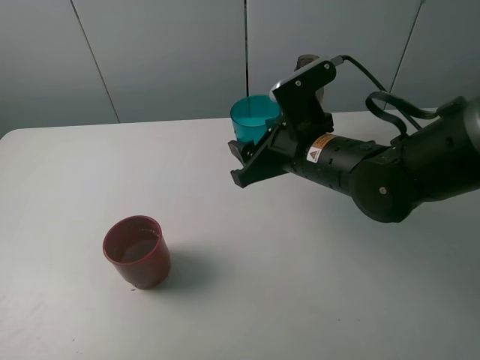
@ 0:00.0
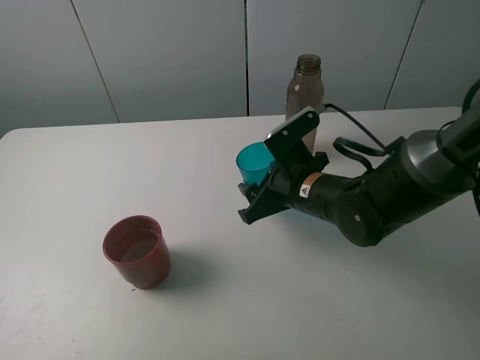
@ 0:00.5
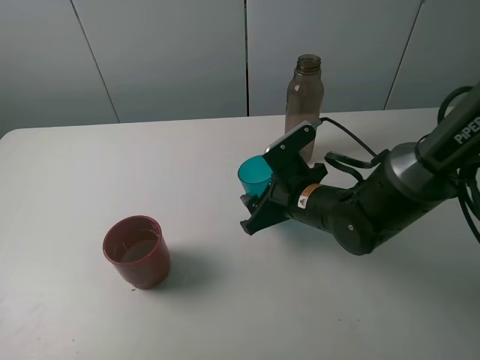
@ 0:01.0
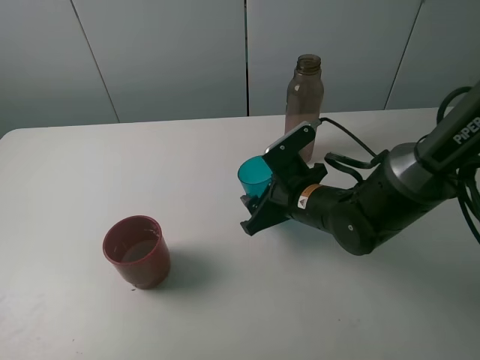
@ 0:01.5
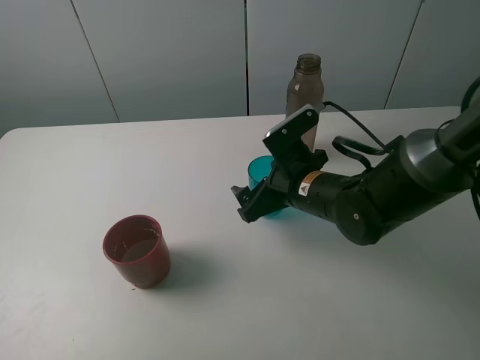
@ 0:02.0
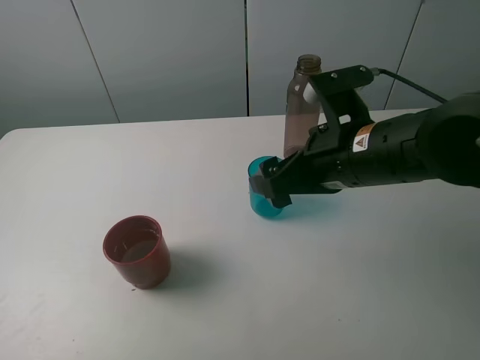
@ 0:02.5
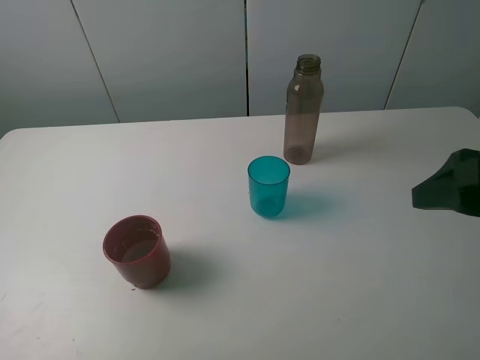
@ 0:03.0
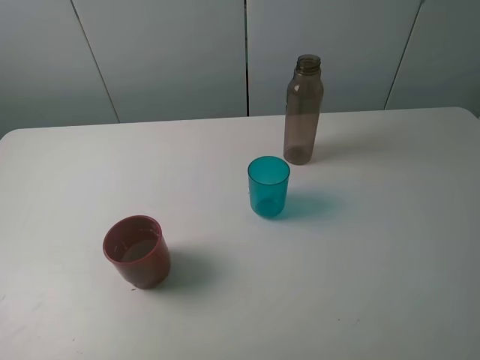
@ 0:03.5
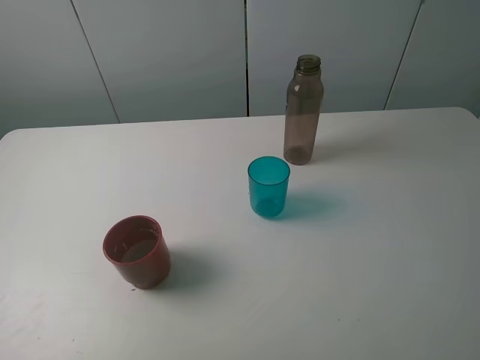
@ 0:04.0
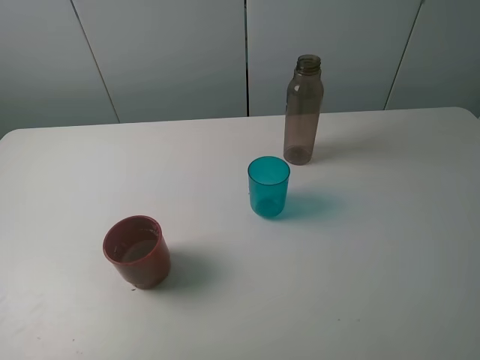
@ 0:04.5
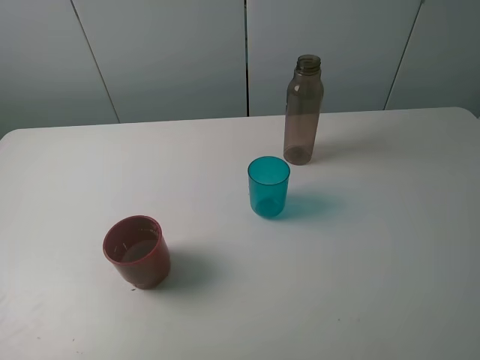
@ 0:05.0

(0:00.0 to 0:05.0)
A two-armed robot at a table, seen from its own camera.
Task of the whole recording: pick up the bottle and pour water into the cup, then pick up the cup containing water and pour it into another cup.
0:00.0 - 0:02.5: The right gripper is displaced backward by some 5 cm, and opens up.
0:02.5 - 0:05.0: The right gripper moves backward, to the right and upward, some 25 cm.

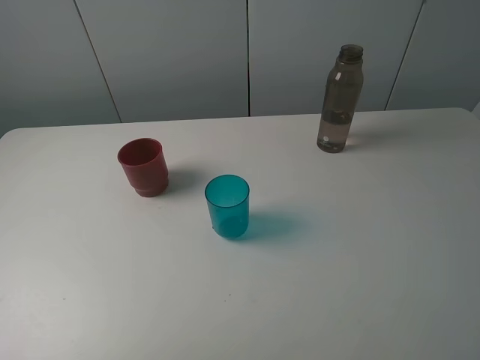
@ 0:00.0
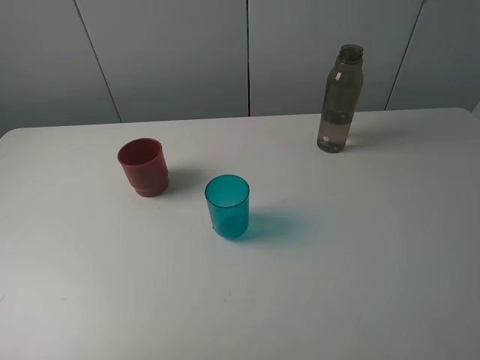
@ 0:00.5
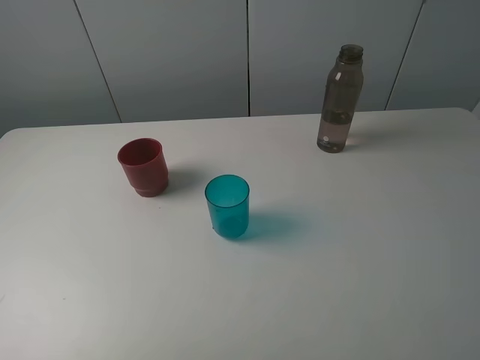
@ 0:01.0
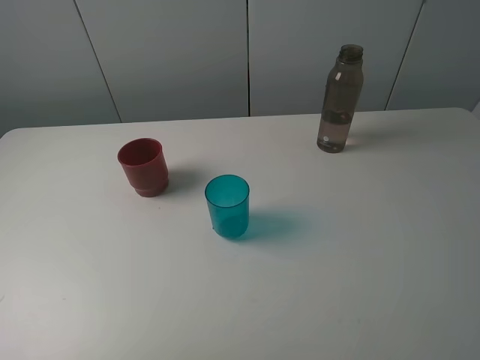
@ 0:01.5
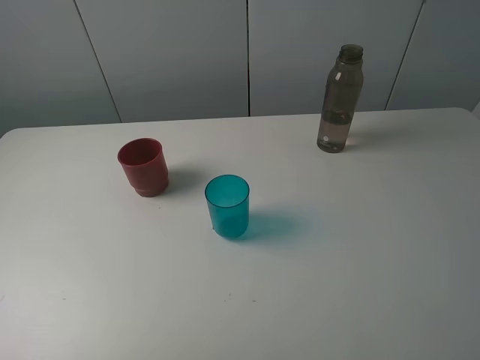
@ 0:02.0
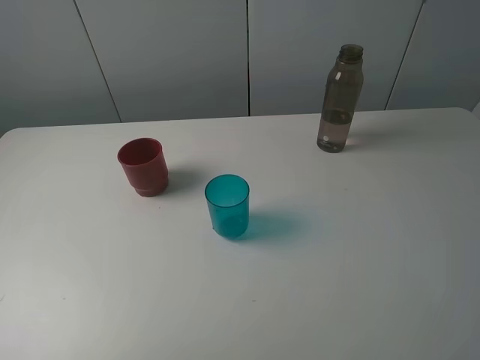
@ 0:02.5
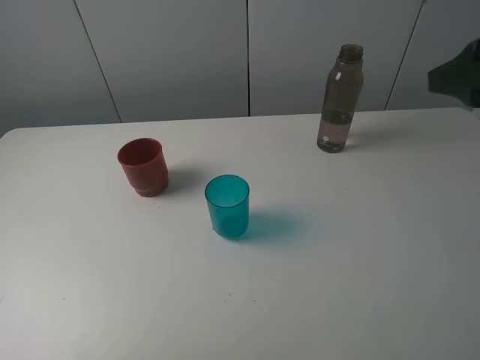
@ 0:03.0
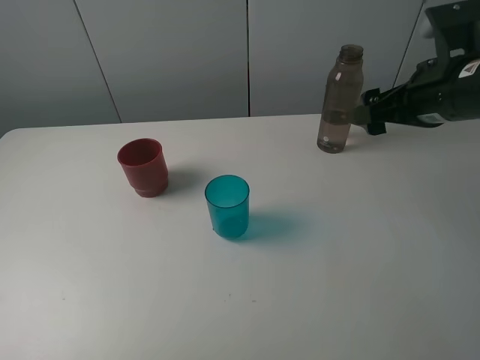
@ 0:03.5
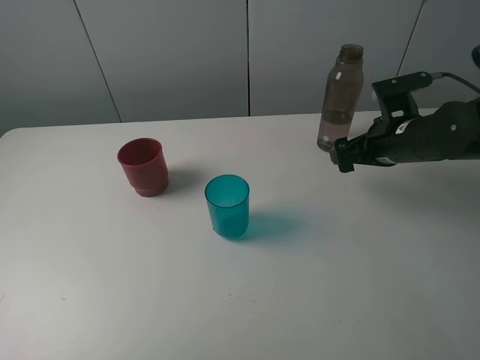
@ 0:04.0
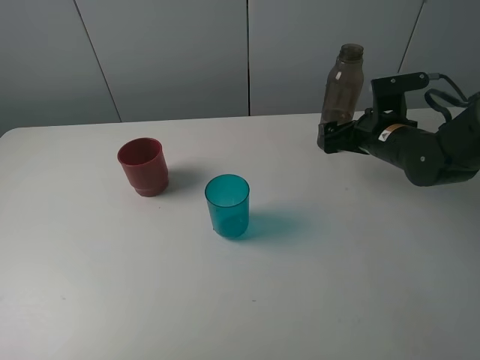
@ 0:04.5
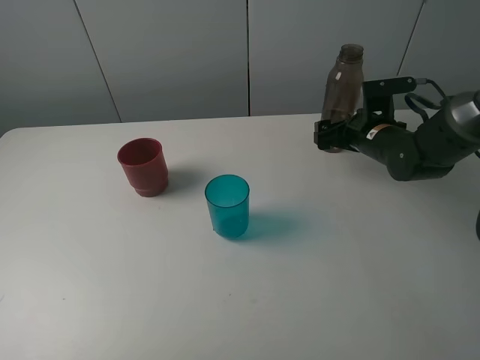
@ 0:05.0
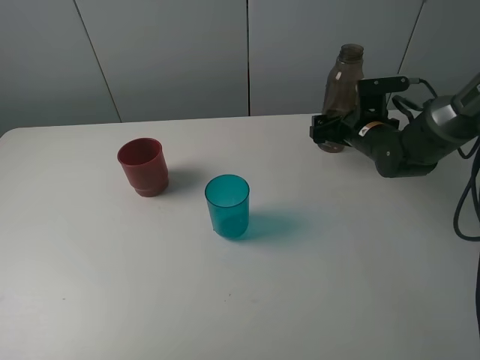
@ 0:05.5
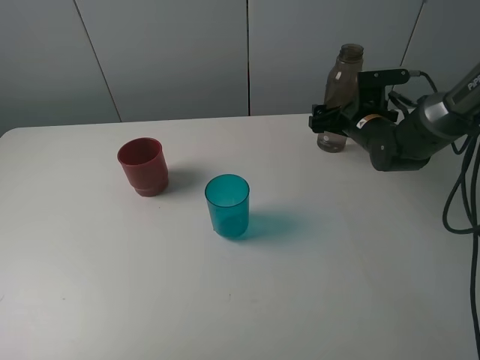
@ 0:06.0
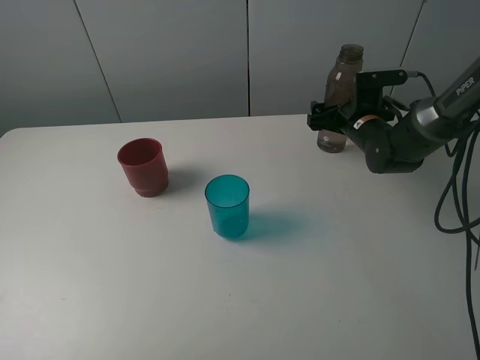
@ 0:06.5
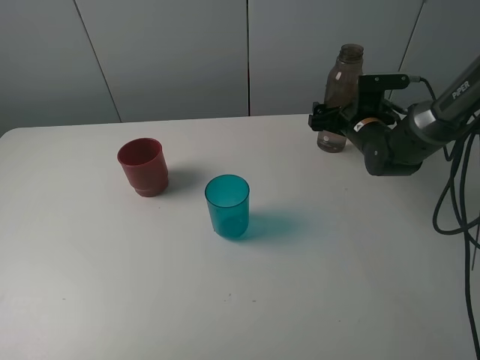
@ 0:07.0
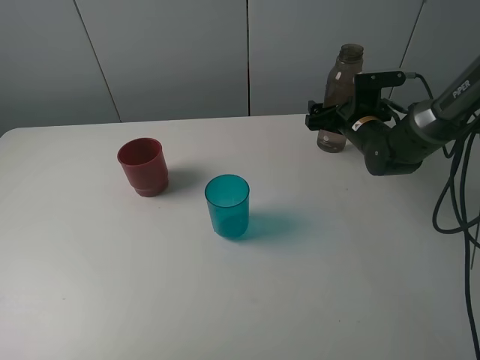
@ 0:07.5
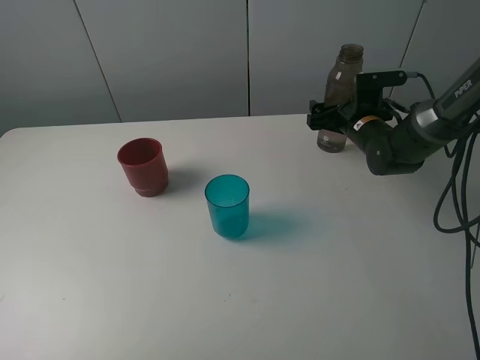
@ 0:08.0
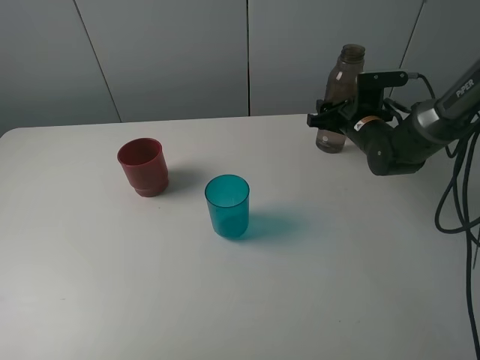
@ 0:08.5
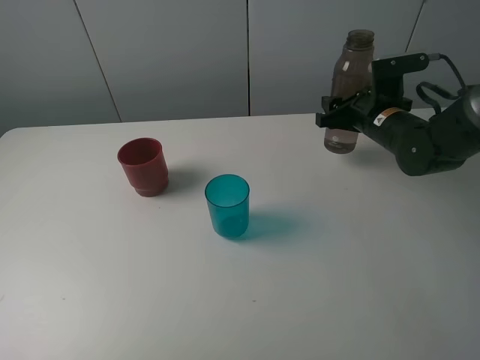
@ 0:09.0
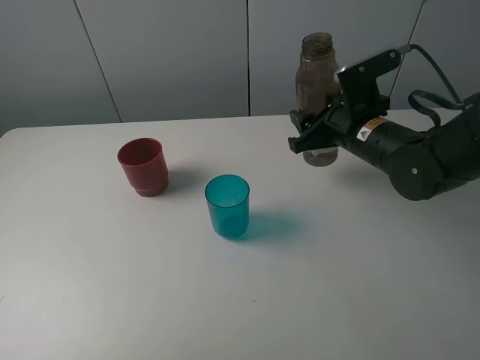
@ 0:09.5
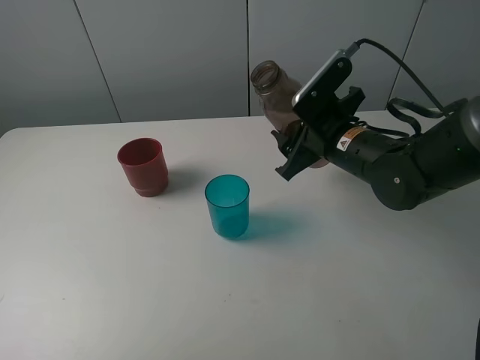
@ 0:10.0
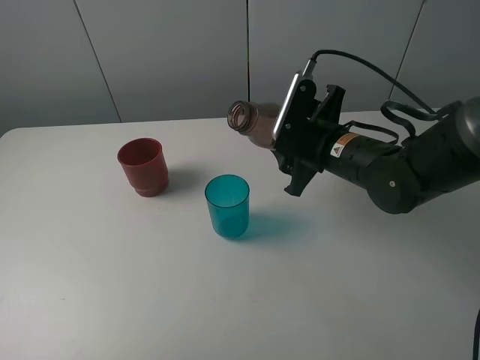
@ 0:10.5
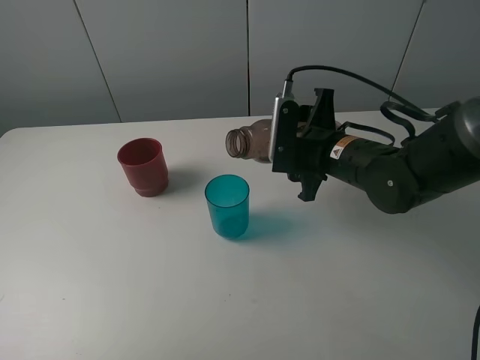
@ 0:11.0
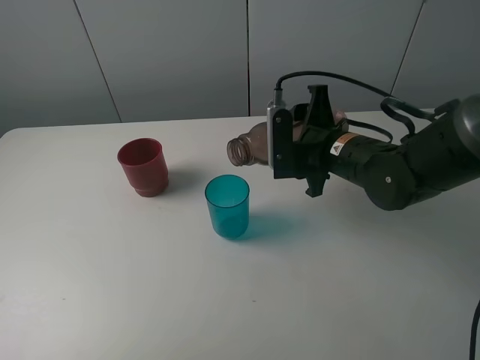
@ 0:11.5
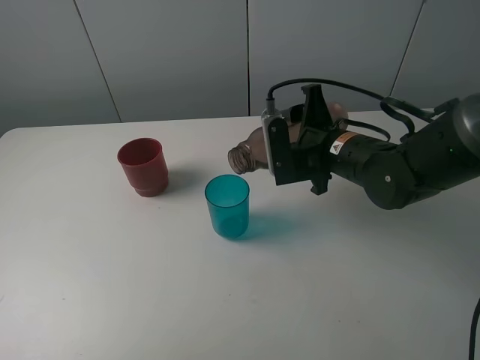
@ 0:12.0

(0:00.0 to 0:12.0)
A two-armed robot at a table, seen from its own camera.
Task of the whole recording: pick up the bottle and pour water into the cup, then pick up the cup containing water and pour it into another cup.
Step, 0:00.0 - 0:08.0: Grasp the brown bottle with the right gripper.
0:00.0 - 0:02.0: Both grippers stay put.
0:02.0 - 0:04.0: The right gripper moves forward and downward, about 35 cm.
0:04.0 - 0:06.0: The right gripper travels forward by about 10 cm.
0:06.0 - 0:08.0: Neither gripper changes place.
0:08.0 - 0:10.0: The right gripper is displaced backward, to the left and upward by some 15 cm, and closes up.

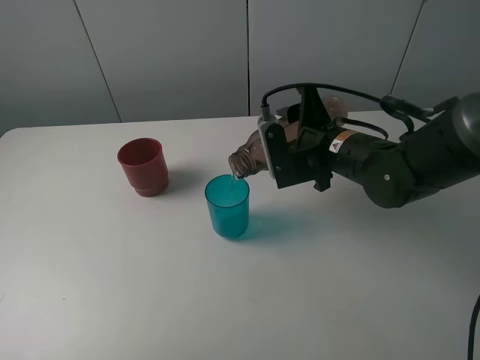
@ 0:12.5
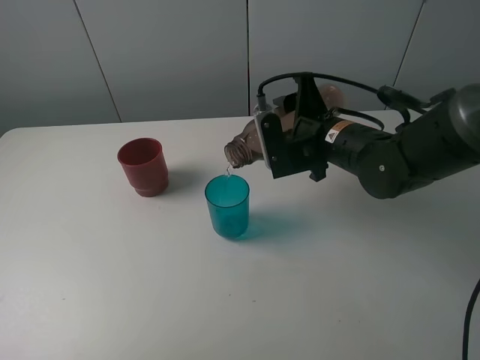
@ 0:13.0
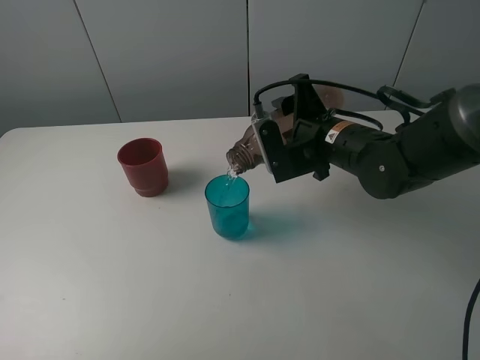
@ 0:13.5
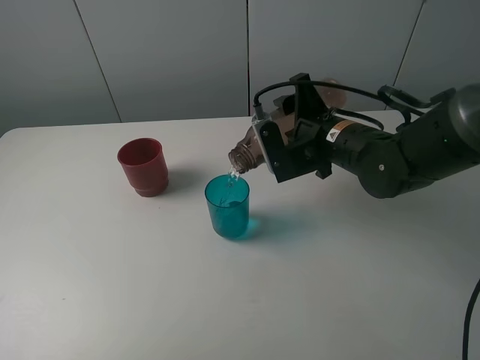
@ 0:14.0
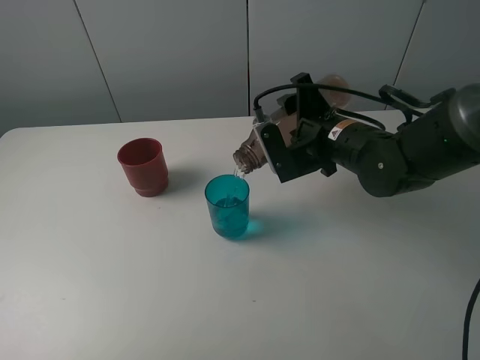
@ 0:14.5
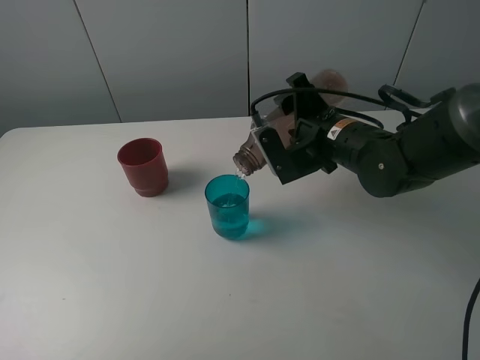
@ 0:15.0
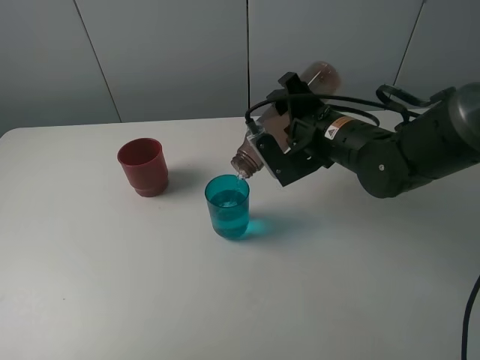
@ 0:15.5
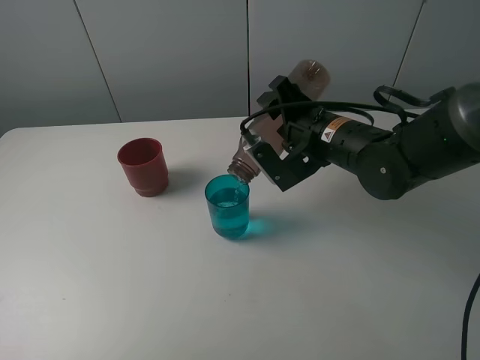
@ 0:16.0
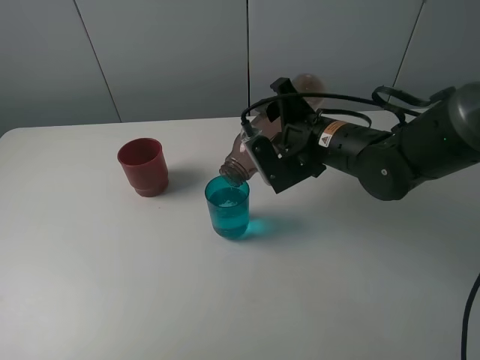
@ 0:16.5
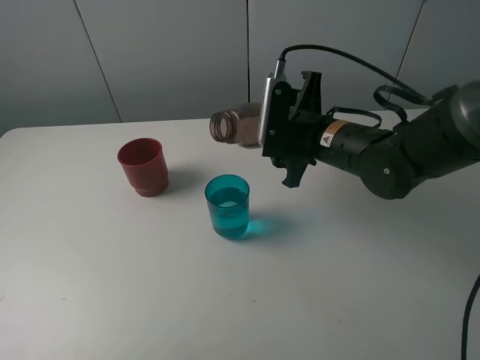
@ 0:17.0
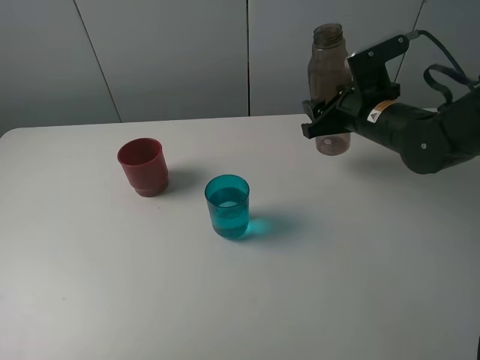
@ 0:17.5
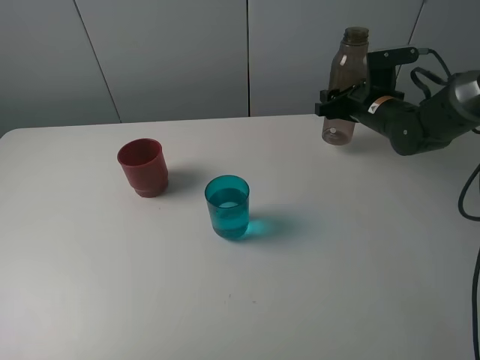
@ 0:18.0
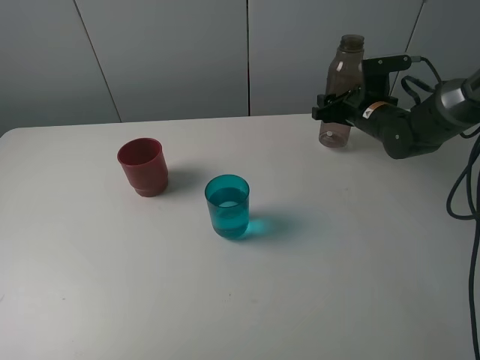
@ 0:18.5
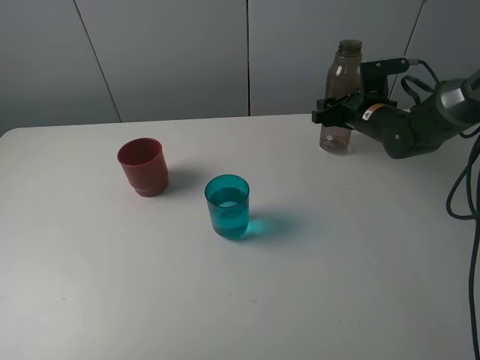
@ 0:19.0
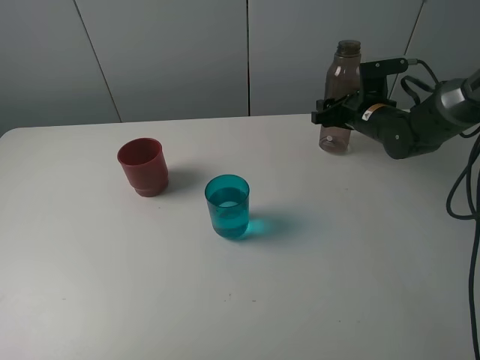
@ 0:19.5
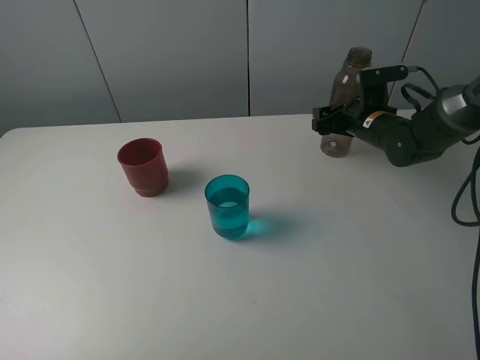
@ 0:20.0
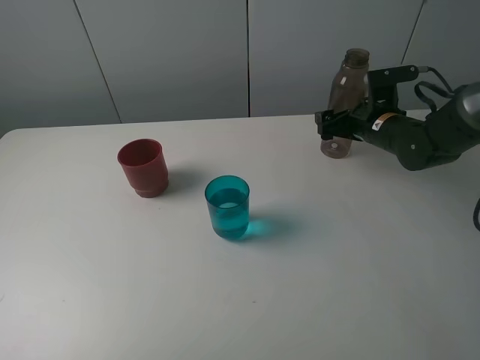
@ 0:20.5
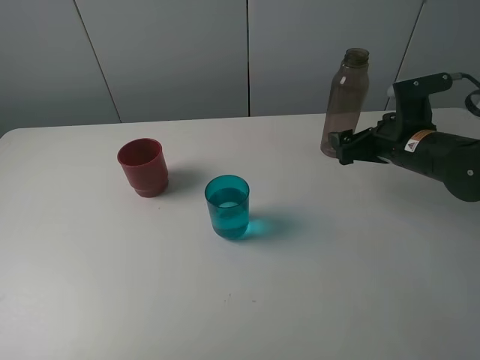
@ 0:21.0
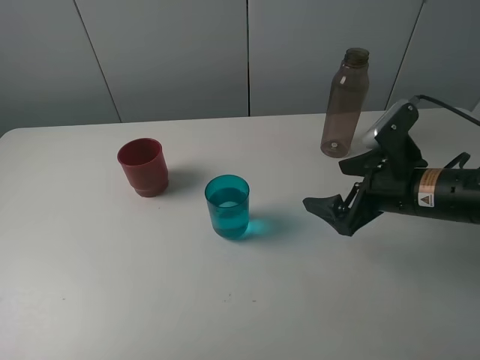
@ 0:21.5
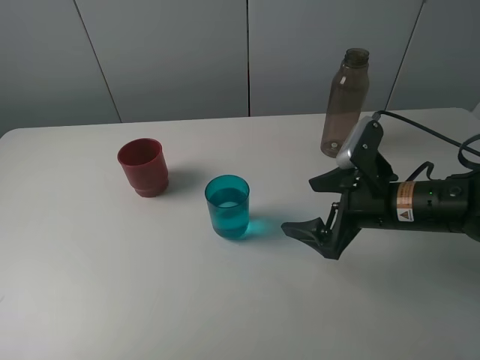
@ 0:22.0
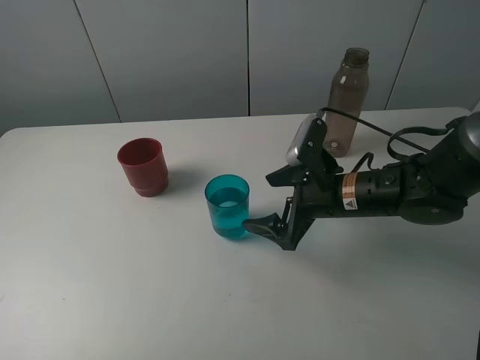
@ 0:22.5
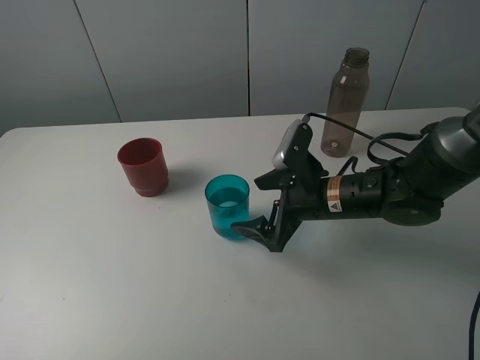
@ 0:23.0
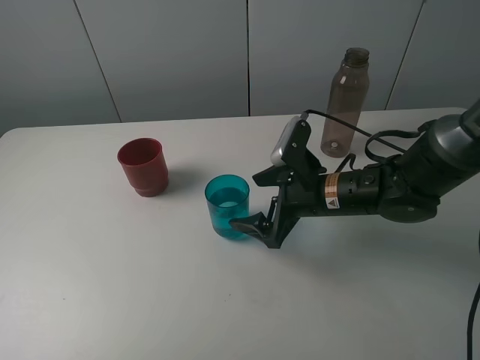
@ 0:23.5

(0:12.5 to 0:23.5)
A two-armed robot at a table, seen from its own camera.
Task of the whole recording: pick up the bottle and pour water into the cup, then pick up the cup containing water and pour it into another cup.
Step, 0:12.5 - 0:16.5: Pour water from brown bottle to blue cup with the right gripper.
Step, 0:17.0 - 0:20.5: Place the brown bottle with the right gripper.
0:12.5 - 0:14.5: The grippers move only a little.
0:14.5 - 0:16.0: The grippers make only small movements.
0:16.0 - 0:18.0: The right gripper heads forward and to the right, covering some 15 cm.
0:18.0 - 0:20.0: The right gripper opens up.
0:20.0 - 0:21.5: The right gripper heads backward, covering about 20 cm.
0:21.5 - 0:23.5: The right gripper heads to the left, covering approximately 10 cm.
